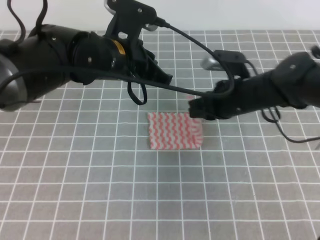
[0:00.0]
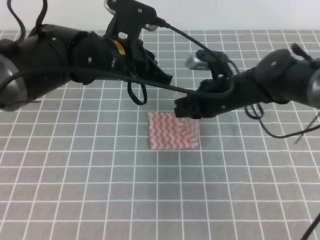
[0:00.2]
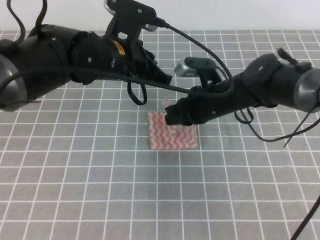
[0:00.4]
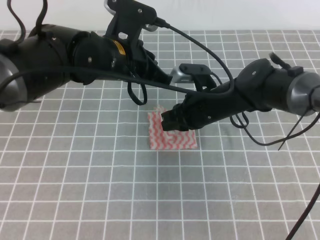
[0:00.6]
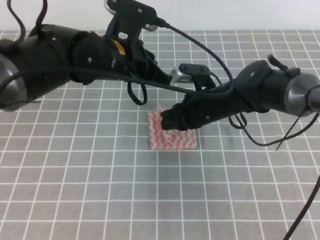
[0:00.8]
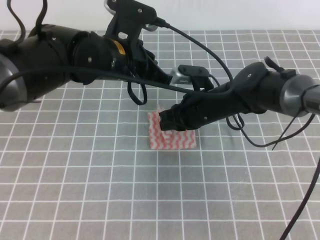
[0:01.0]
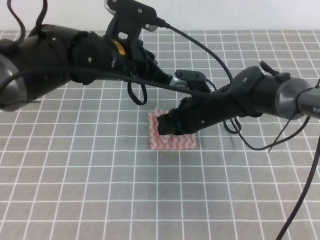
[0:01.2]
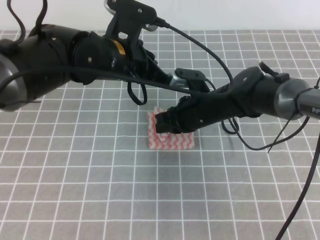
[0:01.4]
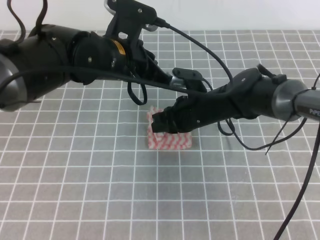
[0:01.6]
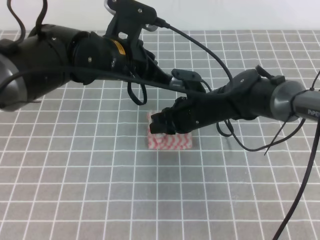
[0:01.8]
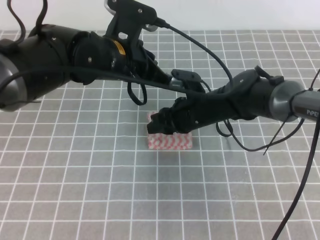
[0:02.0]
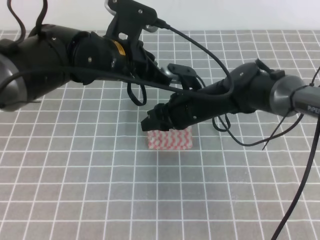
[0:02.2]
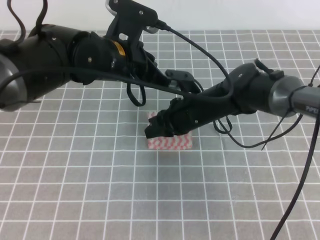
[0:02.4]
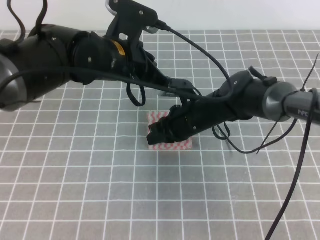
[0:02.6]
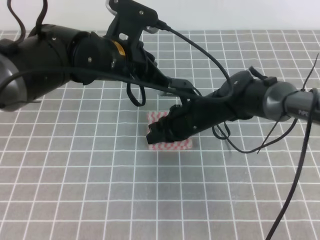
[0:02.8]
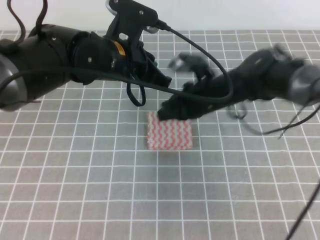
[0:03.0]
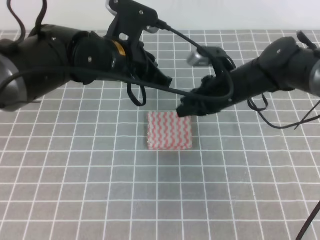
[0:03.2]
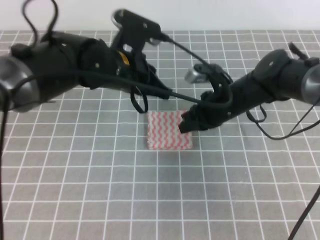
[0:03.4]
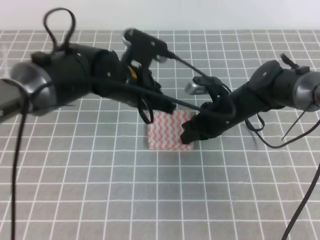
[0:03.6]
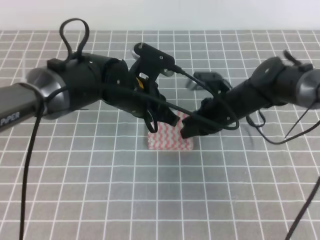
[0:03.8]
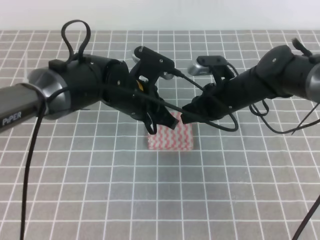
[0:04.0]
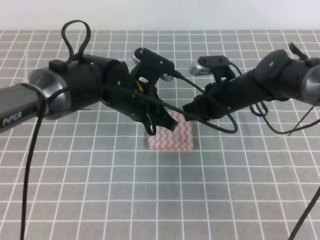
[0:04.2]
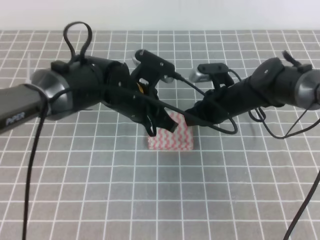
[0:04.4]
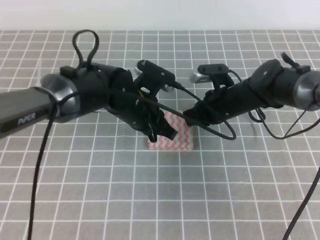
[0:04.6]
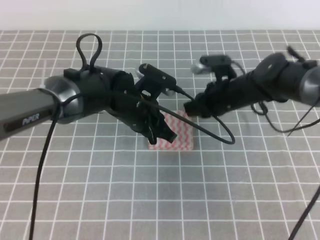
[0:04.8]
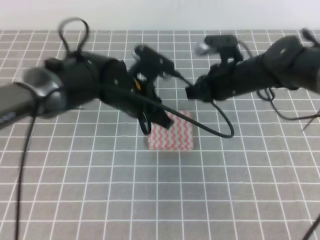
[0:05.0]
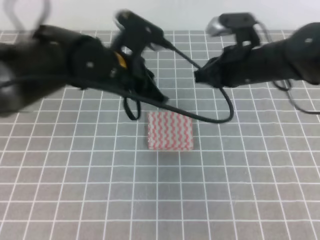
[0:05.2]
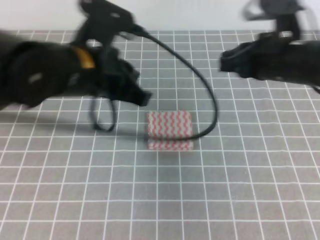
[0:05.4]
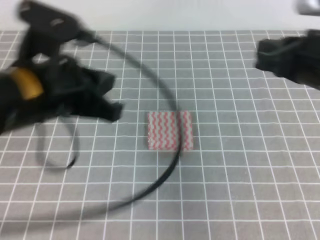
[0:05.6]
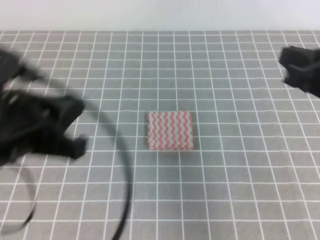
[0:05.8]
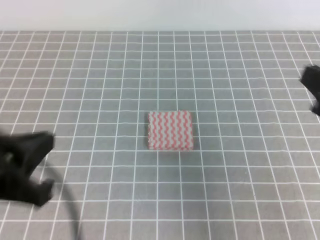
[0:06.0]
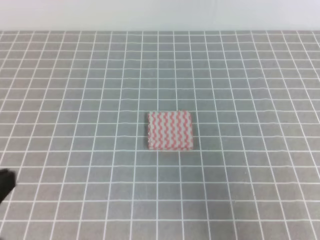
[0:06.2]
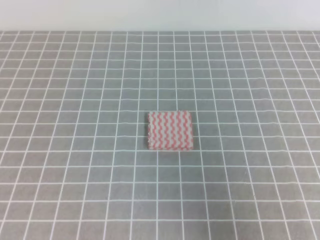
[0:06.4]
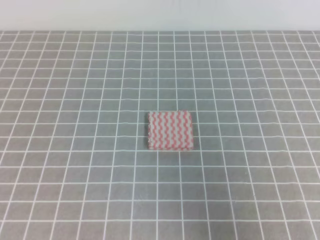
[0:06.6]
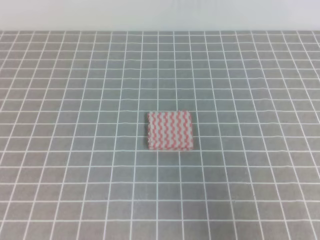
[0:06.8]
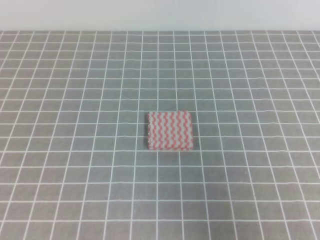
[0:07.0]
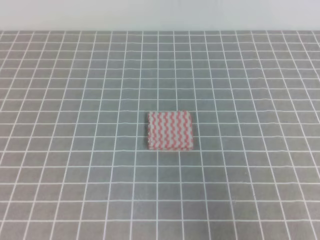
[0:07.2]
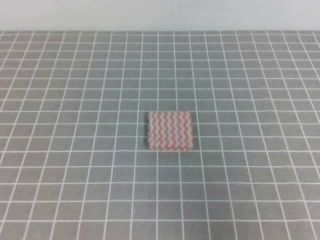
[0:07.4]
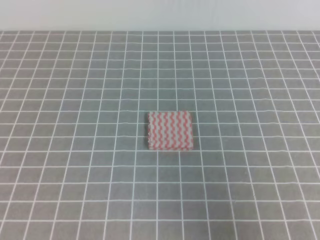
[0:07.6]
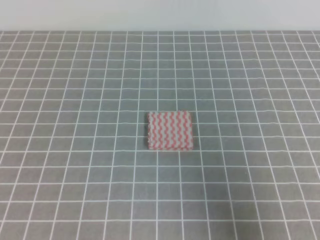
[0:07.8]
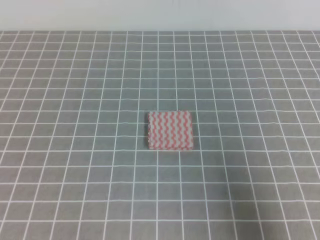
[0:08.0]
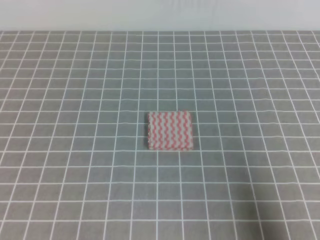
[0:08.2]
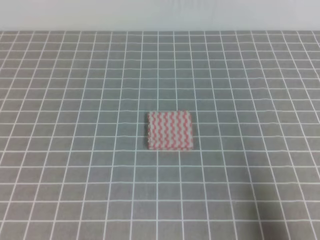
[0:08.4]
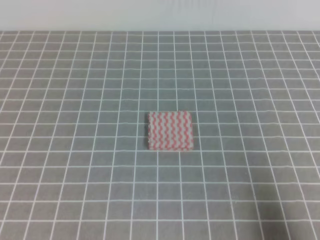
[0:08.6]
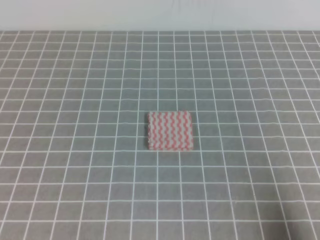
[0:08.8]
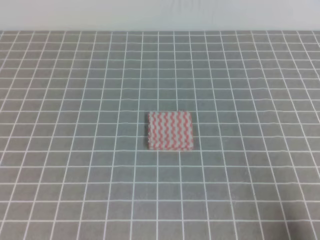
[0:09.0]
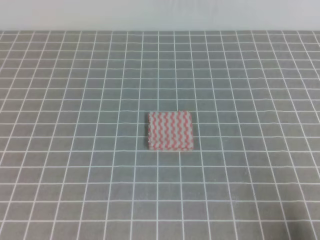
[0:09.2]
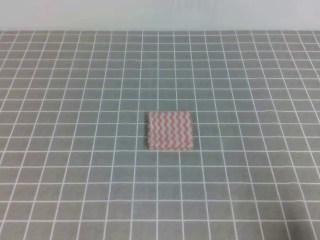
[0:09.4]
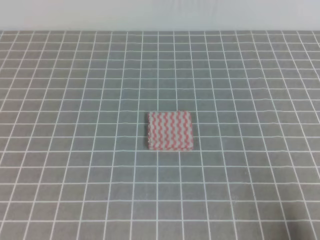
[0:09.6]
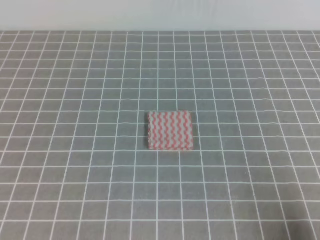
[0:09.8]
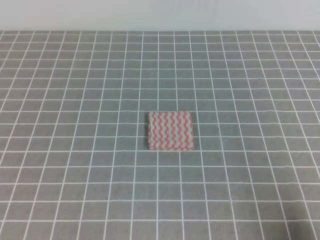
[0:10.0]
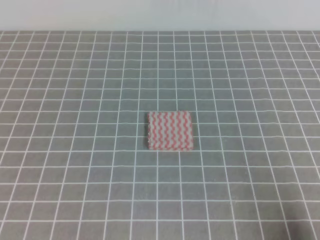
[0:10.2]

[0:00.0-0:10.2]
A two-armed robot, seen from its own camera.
0:00.0 to 0:01.4: The right gripper goes roughly 5 cm to the left.
0:01.4 to 0:03.0: The right gripper opens, then closes again.
0:03.0 to 0:04.4: The left gripper shifts approximately 10 cm downward.
0:04.4 to 0:05.8: The right gripper goes some 25 cm backward, upward and to the right; the left gripper heads backward, to the left and upward, covering roughly 25 cm.
0:05.8 to 0:07.2: The left gripper shifts some 15 cm backward and to the left; the right gripper heads backward, covering some 15 cm.
0:07.2 to 0:08.8: The right gripper shifts some 10 cm downward.
